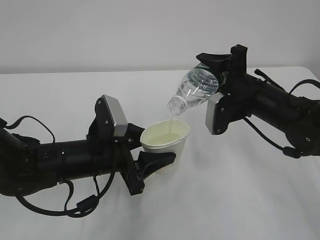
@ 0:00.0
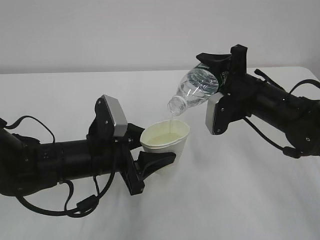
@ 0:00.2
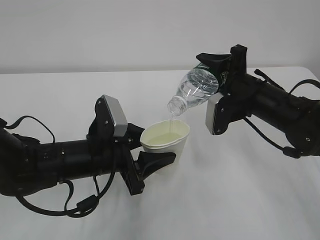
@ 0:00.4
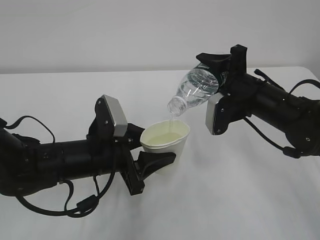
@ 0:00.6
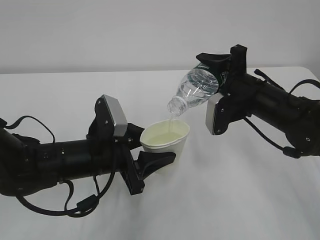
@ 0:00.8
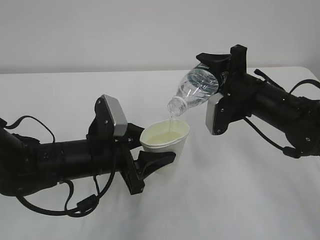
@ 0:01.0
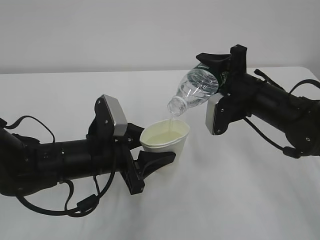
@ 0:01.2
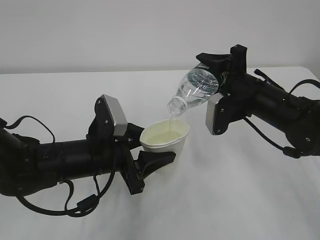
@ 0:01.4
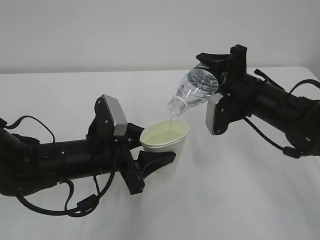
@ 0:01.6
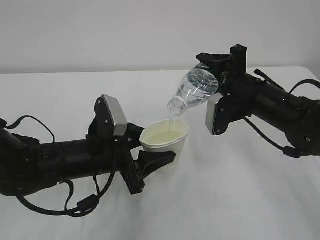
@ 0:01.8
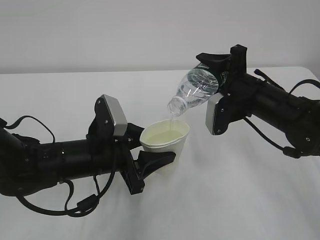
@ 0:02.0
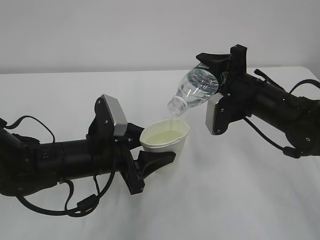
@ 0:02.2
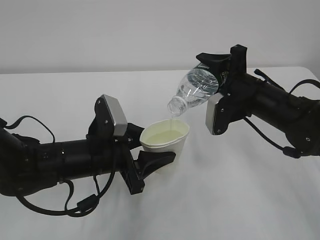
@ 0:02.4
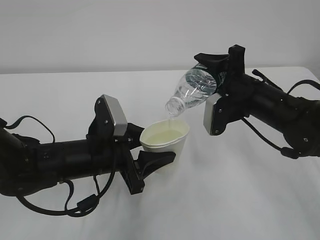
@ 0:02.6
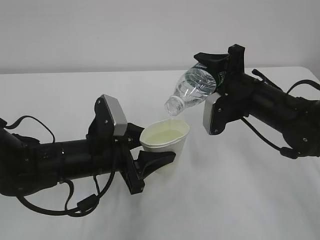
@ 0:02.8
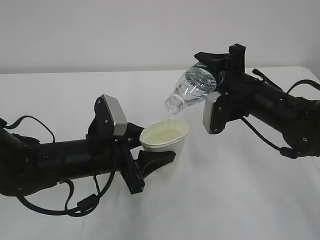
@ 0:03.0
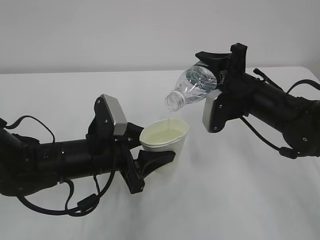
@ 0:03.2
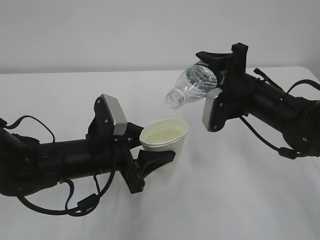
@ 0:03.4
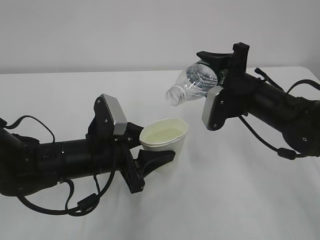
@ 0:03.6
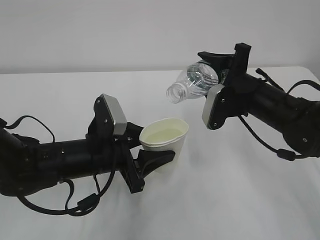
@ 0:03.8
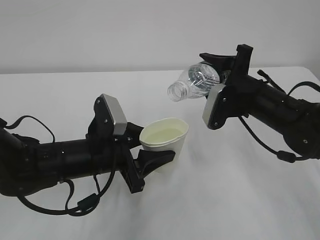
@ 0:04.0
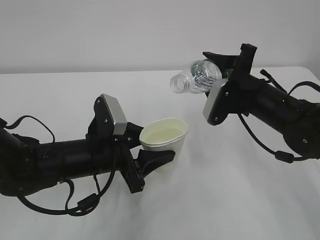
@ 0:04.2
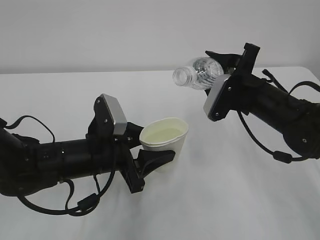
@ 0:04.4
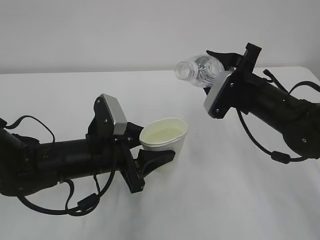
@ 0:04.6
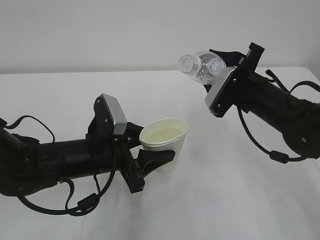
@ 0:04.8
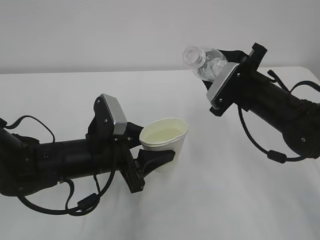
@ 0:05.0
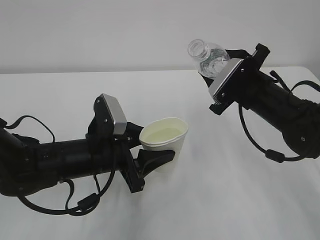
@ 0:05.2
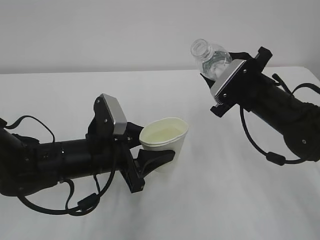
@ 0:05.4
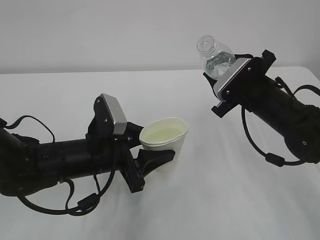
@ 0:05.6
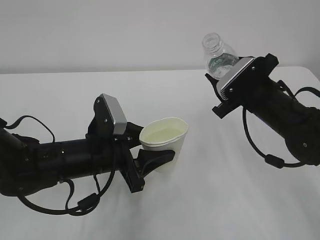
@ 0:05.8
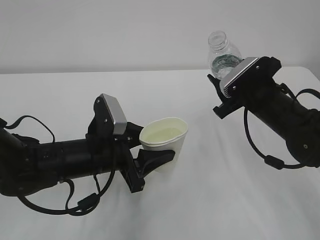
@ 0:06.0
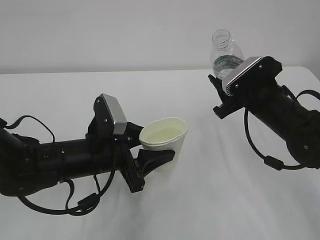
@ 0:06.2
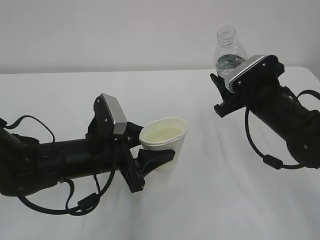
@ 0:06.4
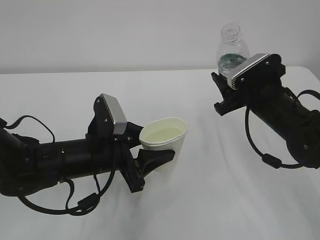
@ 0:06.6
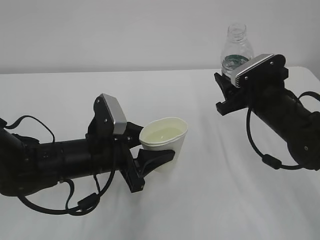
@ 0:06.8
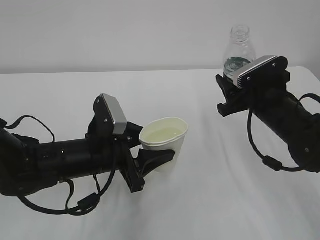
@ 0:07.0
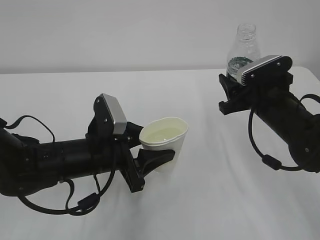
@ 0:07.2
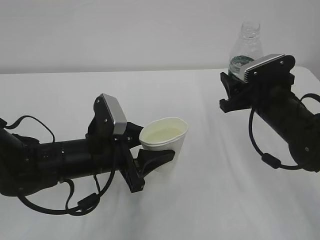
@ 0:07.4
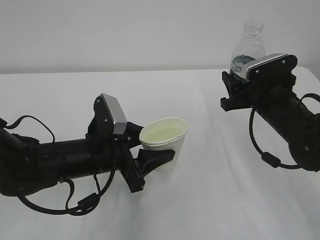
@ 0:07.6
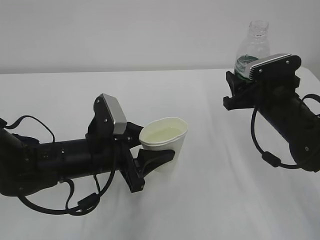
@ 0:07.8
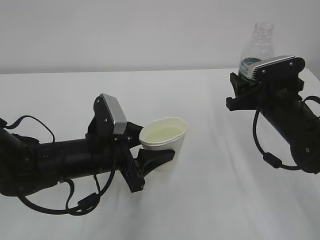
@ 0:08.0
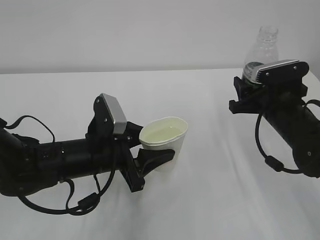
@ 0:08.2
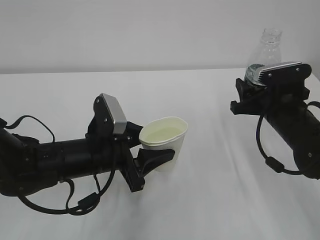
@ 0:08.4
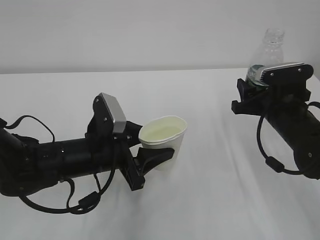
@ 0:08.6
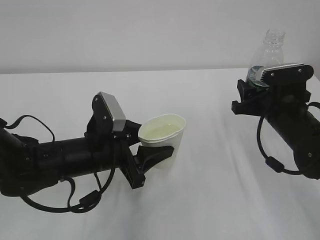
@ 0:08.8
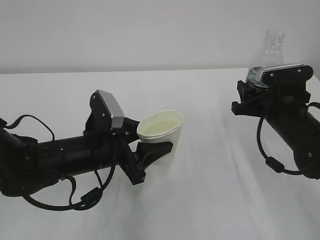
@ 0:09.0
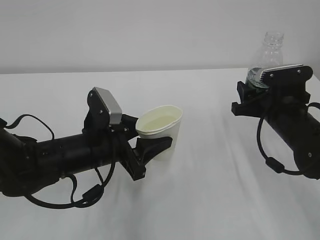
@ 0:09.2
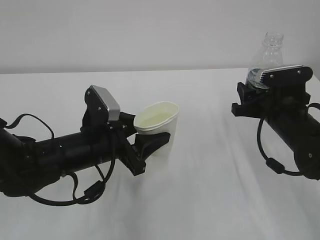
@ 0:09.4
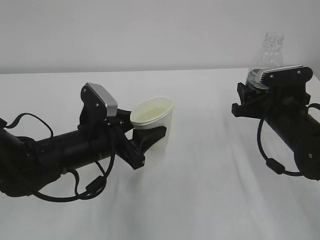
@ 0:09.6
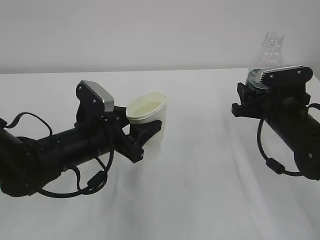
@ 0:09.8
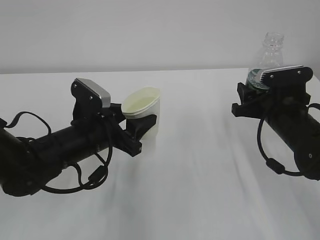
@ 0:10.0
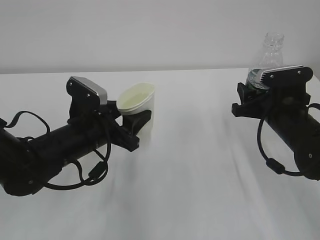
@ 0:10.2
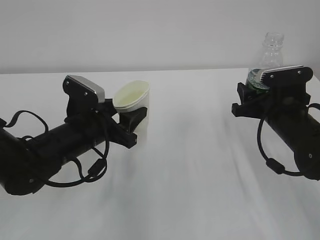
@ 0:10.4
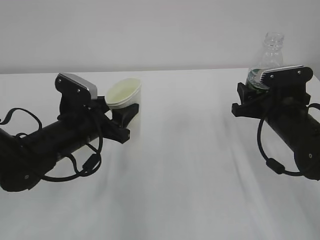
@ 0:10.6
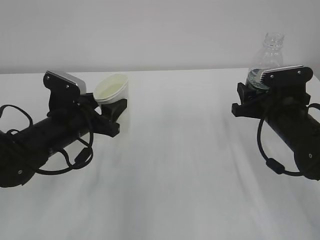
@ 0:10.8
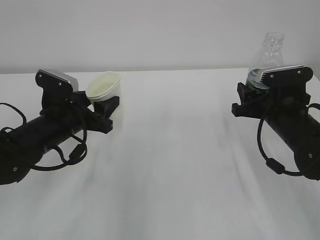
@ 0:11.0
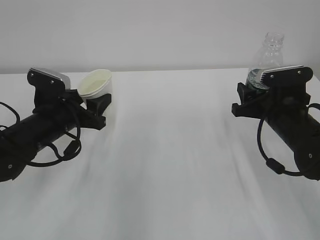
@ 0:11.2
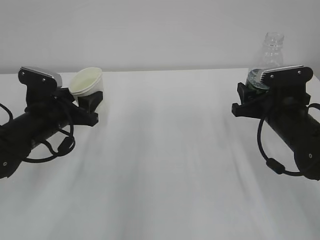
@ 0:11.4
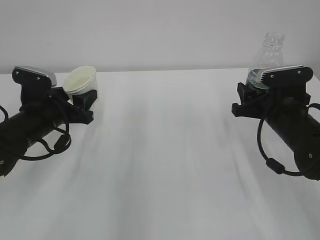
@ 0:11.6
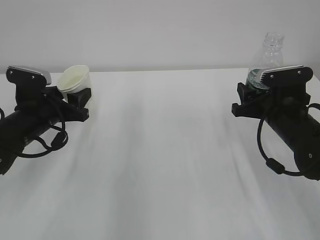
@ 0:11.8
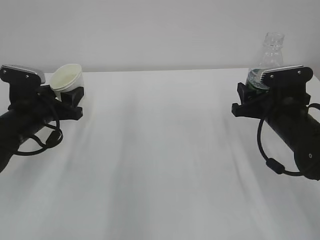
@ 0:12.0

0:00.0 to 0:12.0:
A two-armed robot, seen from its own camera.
0:00.0 to 0:03.0: Neither gripper changes place.
0:07.6 to 0:09.0: There are only small adjustments of the grippers.
0:10.4 to 0:12.0: The left gripper heads to the left, covering approximately 10 cm.

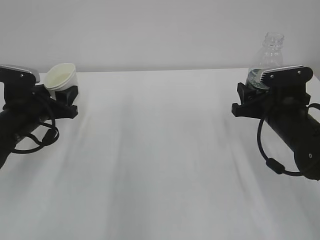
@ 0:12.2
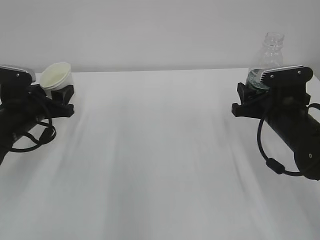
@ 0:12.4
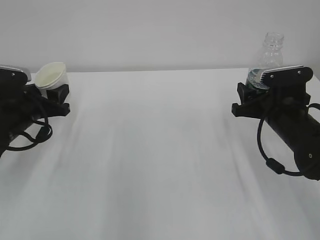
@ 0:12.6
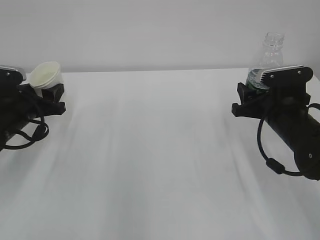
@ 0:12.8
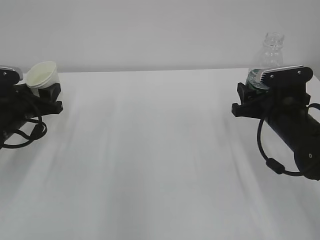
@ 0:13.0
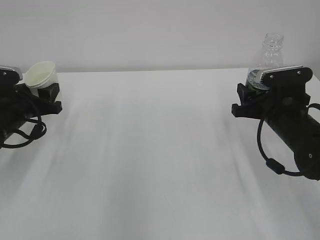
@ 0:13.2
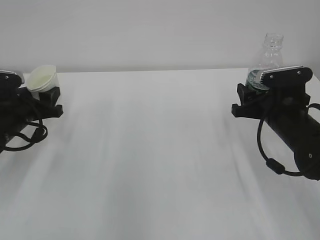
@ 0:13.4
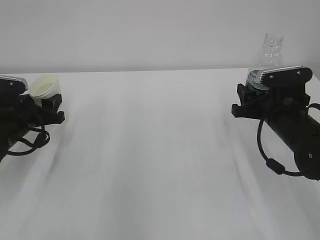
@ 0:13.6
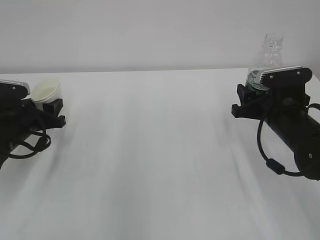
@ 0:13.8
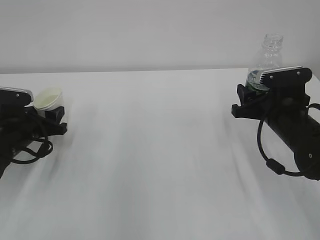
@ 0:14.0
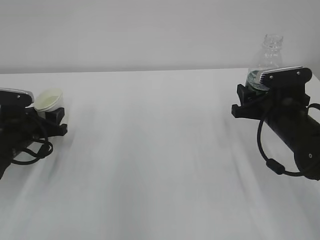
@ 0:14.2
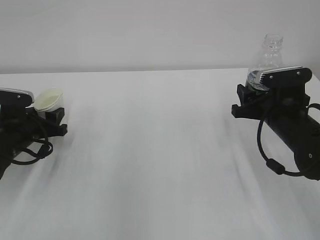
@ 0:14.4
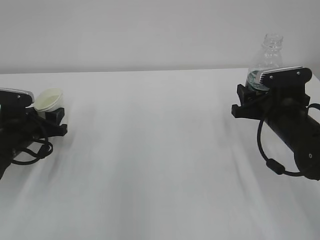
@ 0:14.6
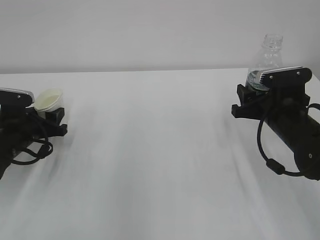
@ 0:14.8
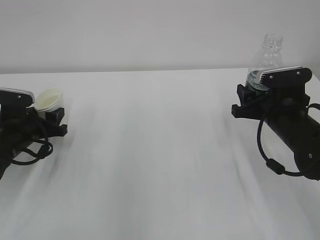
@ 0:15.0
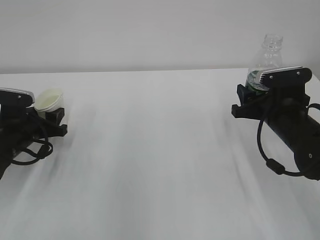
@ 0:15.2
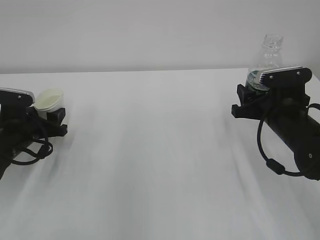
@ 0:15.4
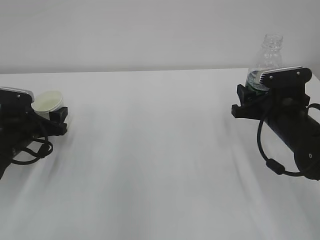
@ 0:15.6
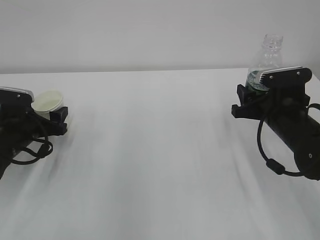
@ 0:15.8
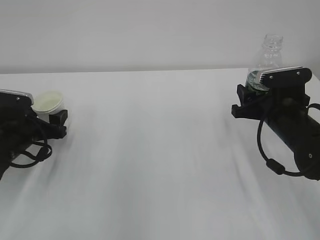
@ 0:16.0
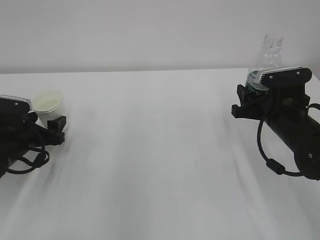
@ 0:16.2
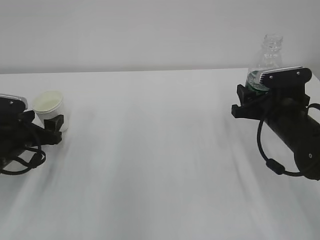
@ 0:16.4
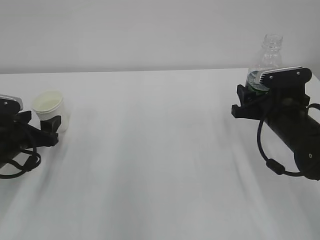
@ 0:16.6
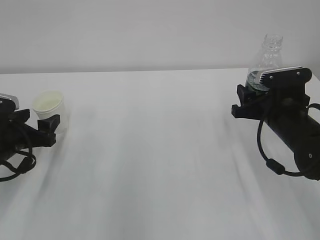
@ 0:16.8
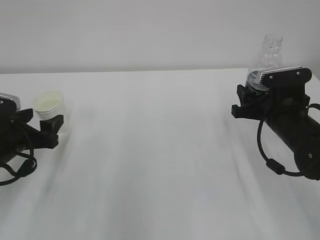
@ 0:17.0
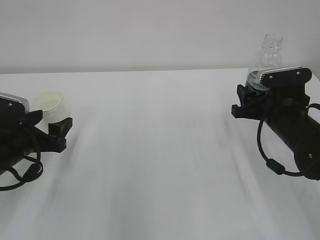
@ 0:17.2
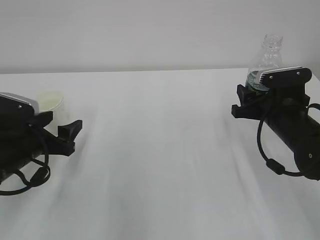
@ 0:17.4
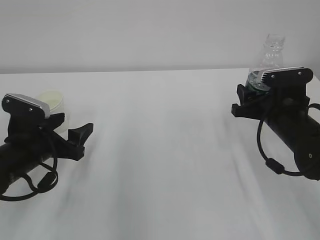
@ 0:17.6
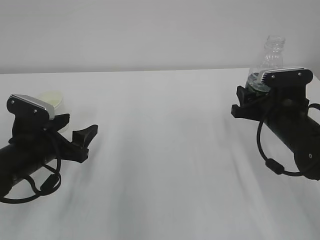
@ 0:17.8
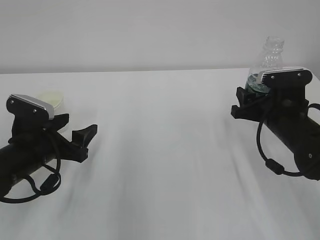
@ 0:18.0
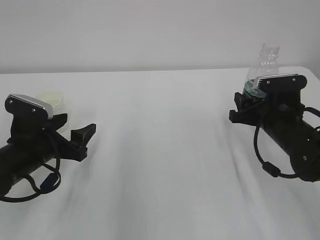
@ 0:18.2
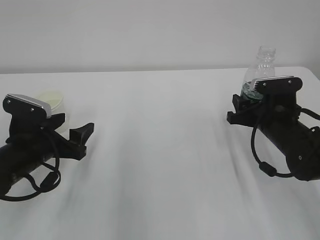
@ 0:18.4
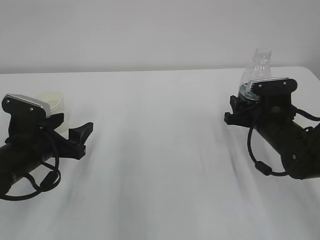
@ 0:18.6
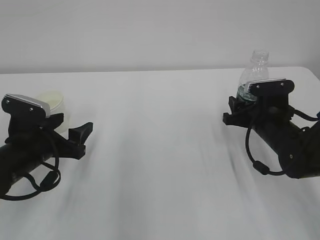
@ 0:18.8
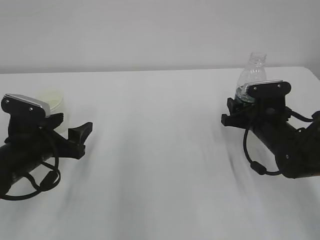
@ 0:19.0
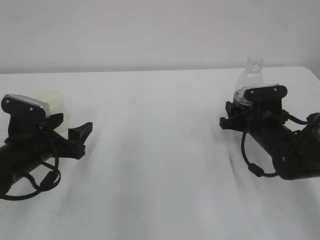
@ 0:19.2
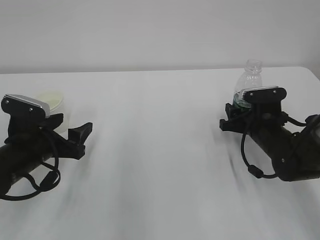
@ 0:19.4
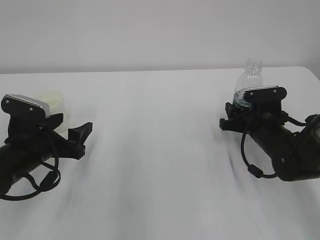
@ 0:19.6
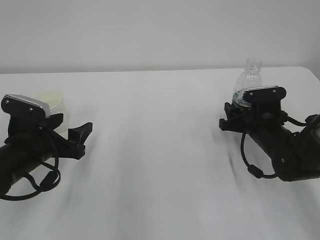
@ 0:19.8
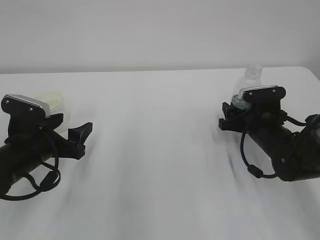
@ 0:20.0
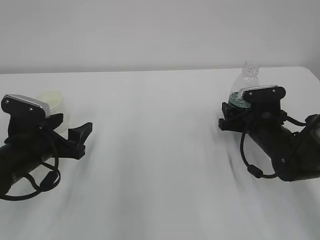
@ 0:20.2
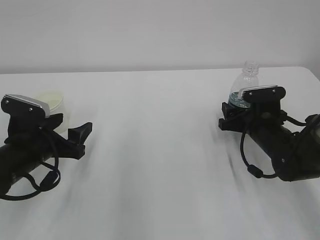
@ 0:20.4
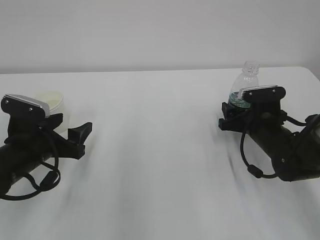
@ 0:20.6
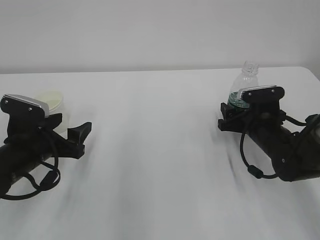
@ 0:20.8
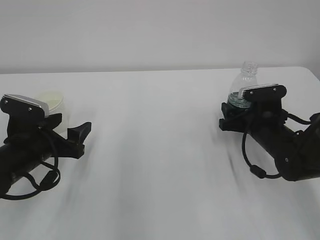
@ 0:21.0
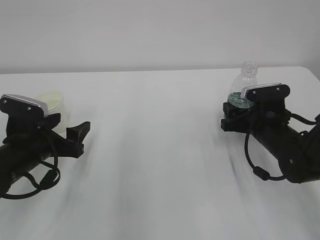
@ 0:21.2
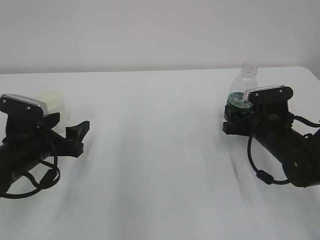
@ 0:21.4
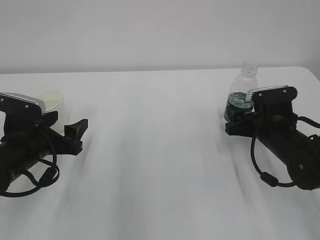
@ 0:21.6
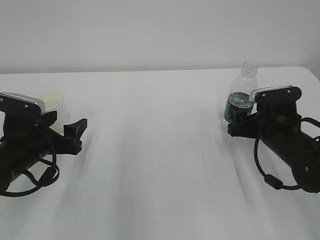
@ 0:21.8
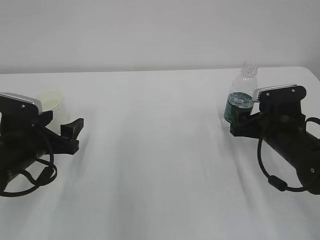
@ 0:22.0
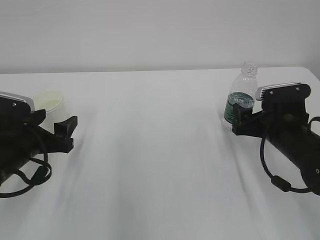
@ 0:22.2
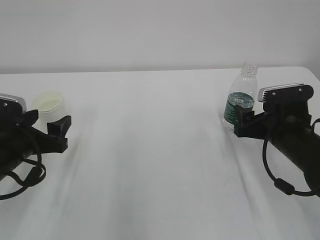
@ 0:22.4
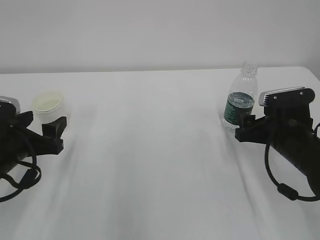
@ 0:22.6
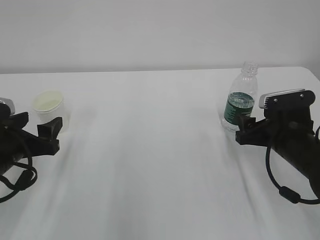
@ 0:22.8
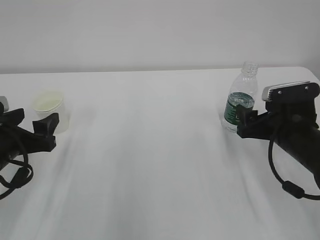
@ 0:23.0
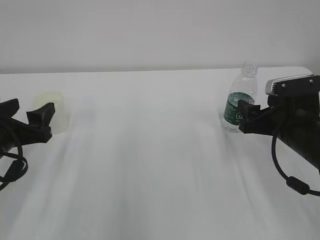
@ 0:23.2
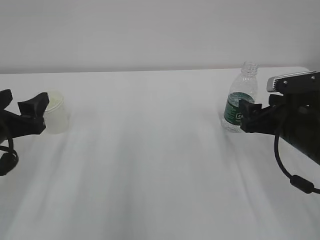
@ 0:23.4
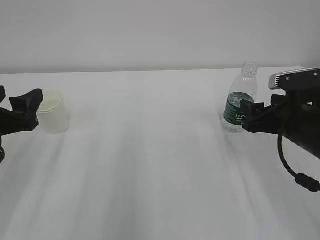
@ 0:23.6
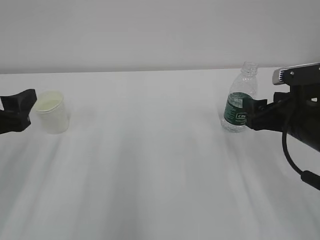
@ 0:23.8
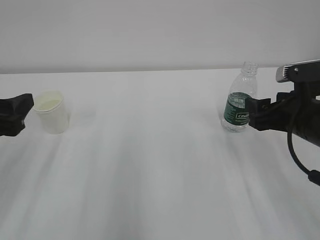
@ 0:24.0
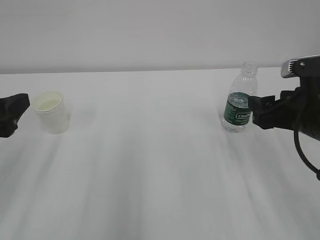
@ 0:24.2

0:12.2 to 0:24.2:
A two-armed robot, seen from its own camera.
0:12.2 to 0:15.2: The grippers stay close to where they were, moving slightly.
0:15.2 to 0:16.6: The left gripper opens up.
0:16.6 to 0:18.2: The left gripper heads to the right, covering about 5 cm.
0:18.2 to 0:19.8: There are only small adjustments of the grippers.
0:19.8 to 0:21.2: The right gripper opens.
0:21.2 to 0:22.6: The right gripper moves about 5 cm.
0:22.6 to 0:24.2: The right gripper heads upward, covering approximately 10 cm; the left gripper moves upward and backward, some 10 cm.
